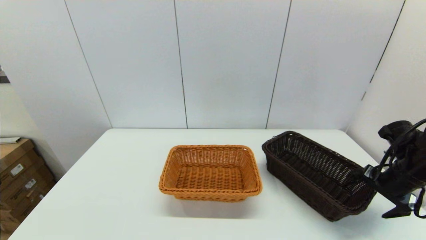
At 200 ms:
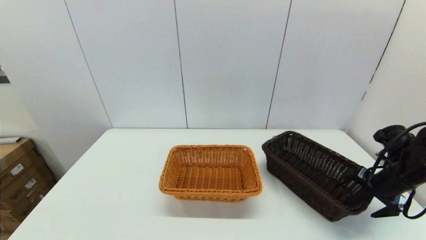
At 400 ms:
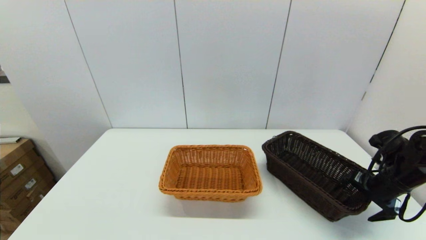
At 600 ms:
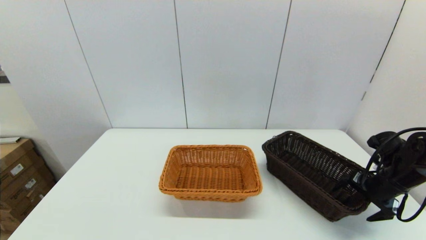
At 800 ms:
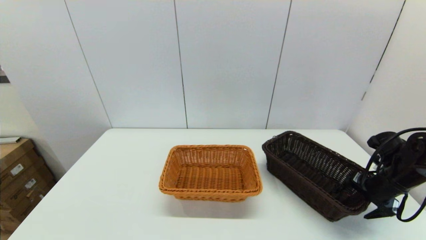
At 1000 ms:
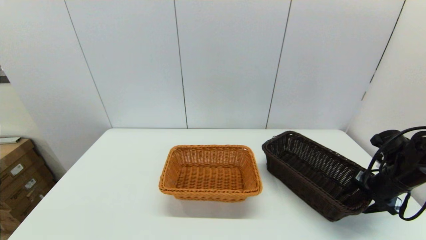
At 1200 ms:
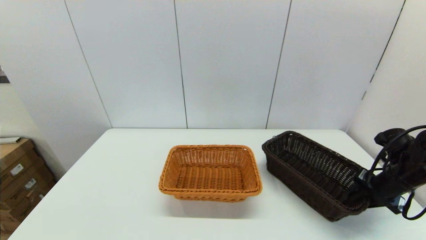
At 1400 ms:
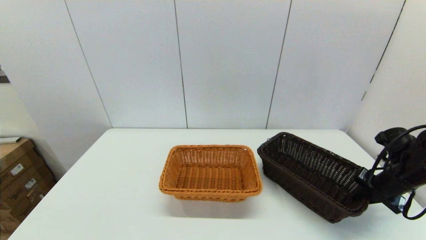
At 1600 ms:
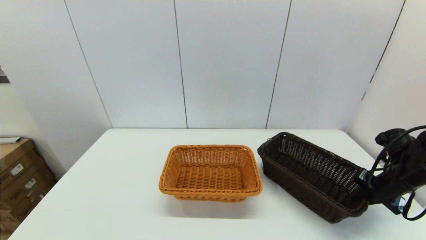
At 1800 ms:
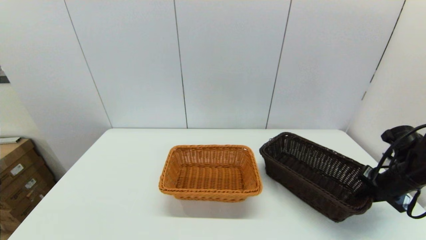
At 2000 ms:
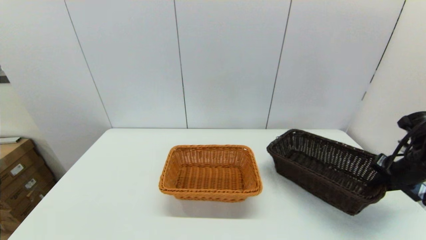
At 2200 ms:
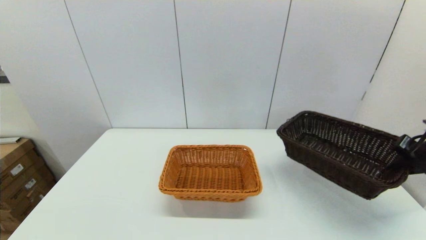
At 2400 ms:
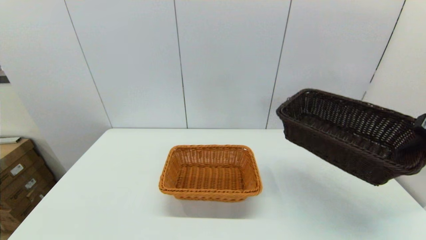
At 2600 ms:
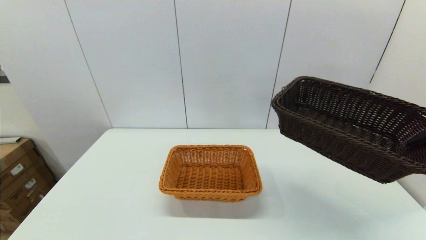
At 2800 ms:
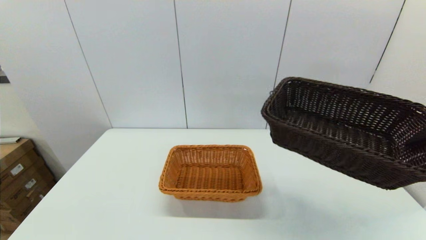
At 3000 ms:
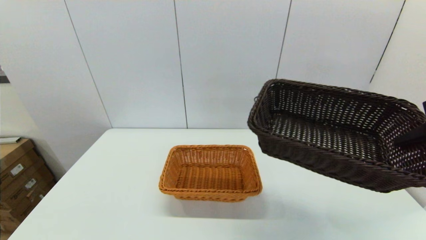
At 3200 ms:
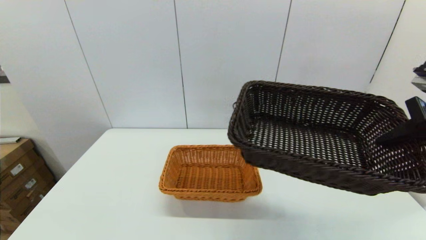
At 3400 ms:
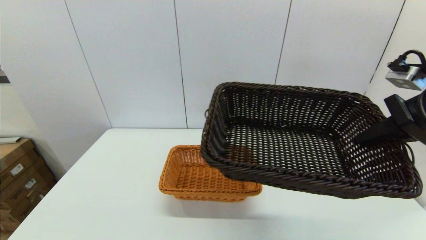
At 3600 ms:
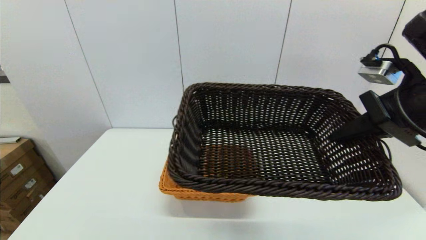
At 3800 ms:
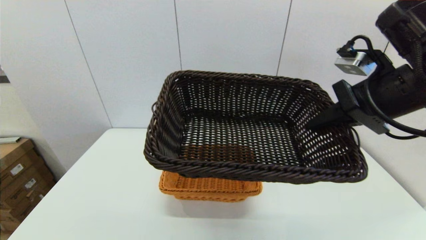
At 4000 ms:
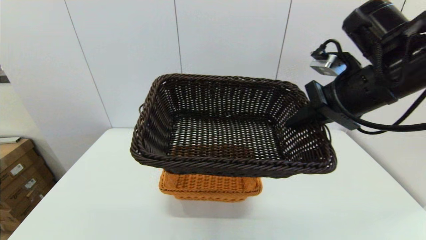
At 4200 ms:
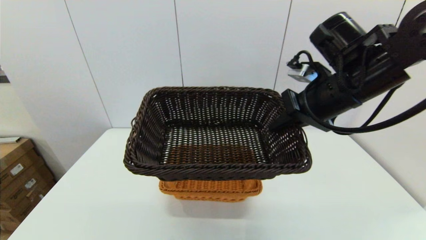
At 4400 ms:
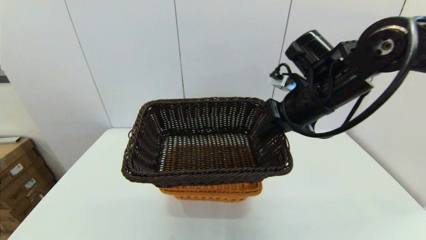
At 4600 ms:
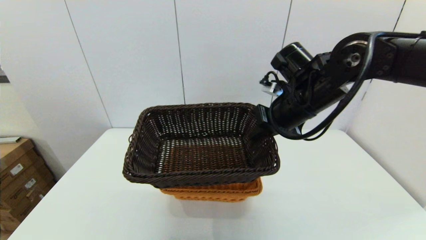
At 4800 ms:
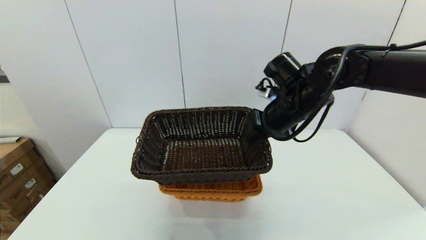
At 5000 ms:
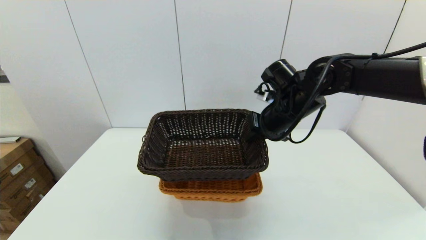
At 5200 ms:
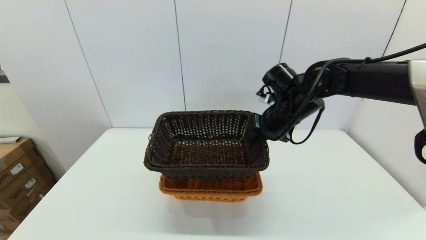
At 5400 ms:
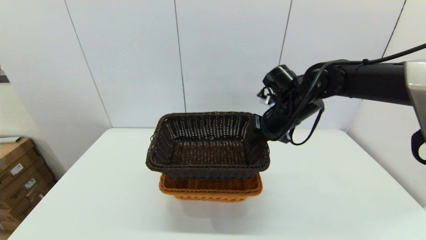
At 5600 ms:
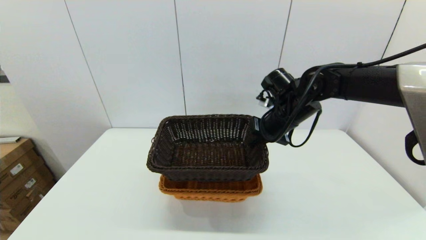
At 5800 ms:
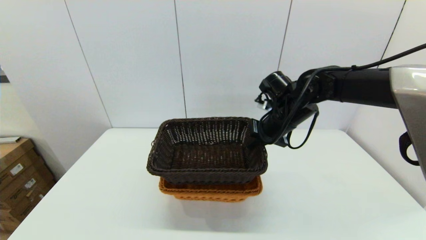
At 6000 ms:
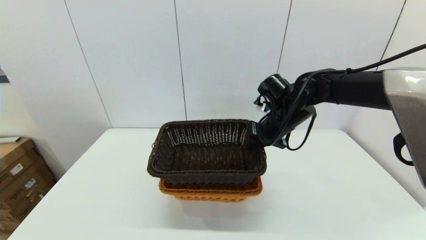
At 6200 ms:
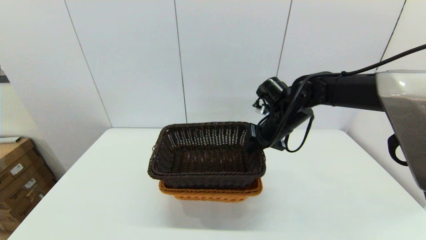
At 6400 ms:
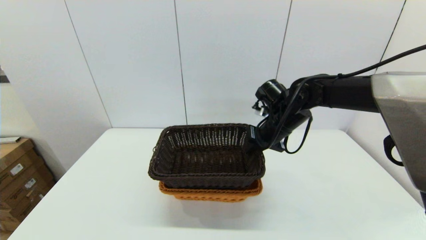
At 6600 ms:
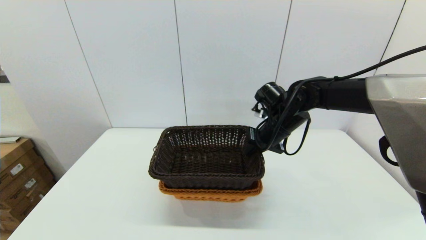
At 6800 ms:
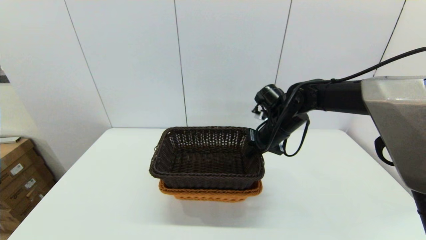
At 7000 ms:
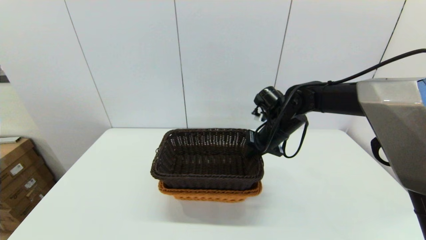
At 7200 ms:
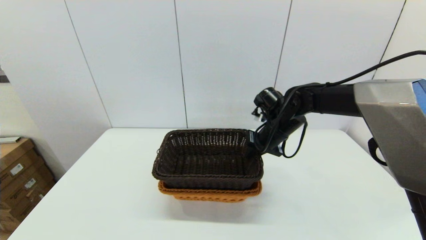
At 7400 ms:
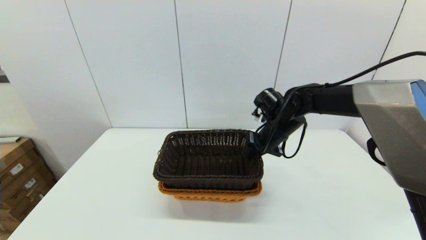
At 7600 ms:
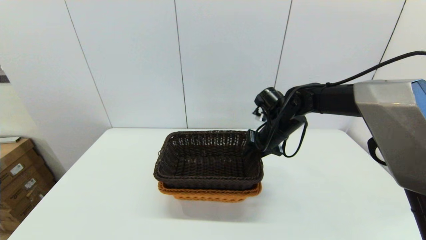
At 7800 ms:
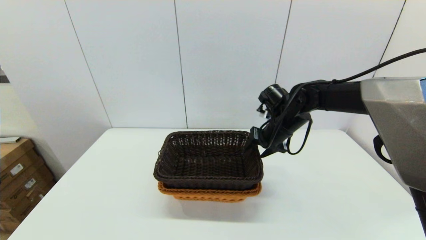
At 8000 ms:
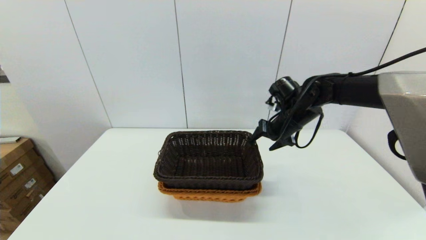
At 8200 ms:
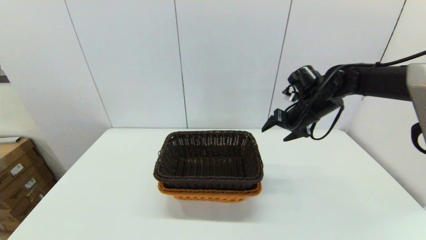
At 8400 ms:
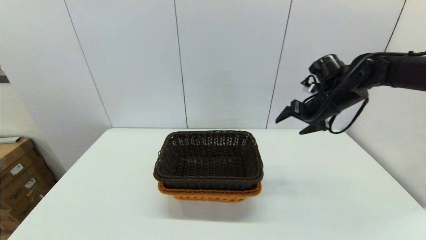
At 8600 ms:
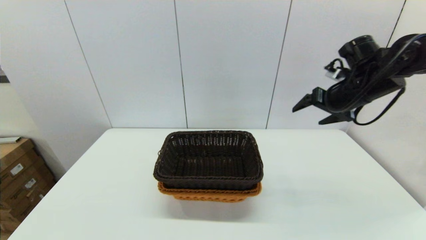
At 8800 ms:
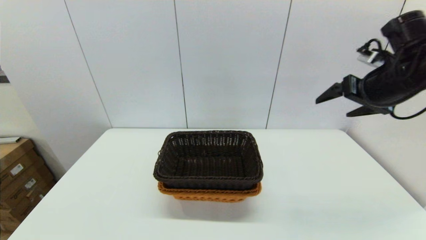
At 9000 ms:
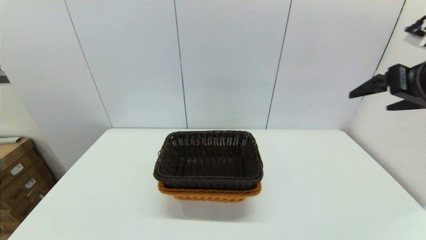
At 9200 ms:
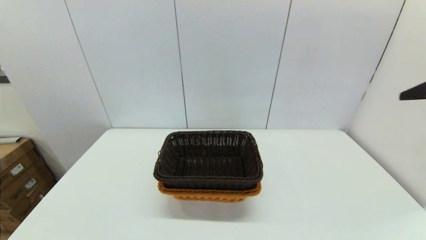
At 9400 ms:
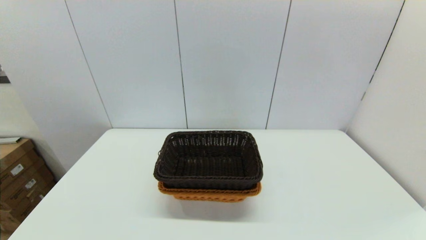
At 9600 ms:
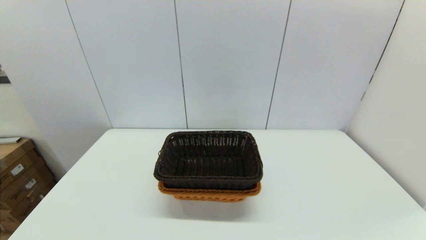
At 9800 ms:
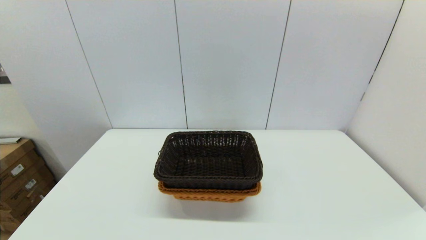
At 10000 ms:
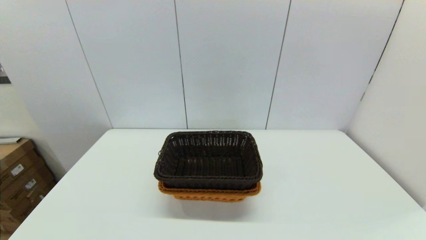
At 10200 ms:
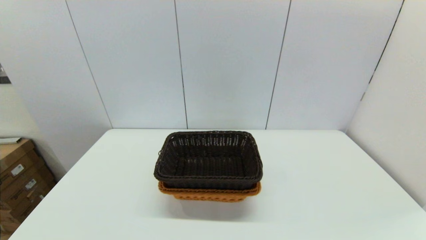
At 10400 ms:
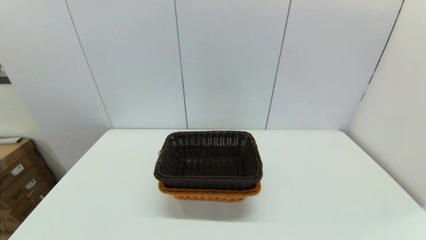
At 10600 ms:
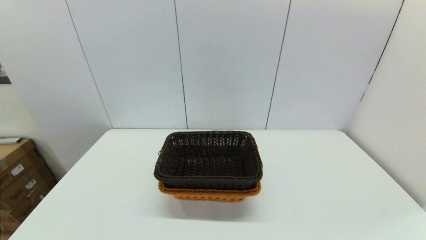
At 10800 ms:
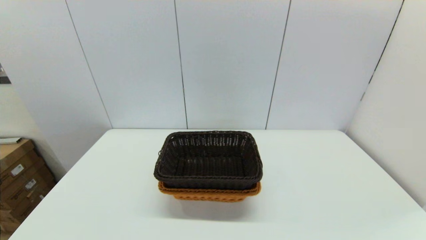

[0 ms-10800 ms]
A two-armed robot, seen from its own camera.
Task of the whole recording: stack a basket on top of another basket.
Step, 1600 ms to 8000 ms: Place the dark basket into the light color basket with the right gripper.
0 ms to 1600 ms: The right gripper closes up.
1600 ms to 3000 ms: The right gripper travels upward by roughly 20 cm.
3000 ms to 4600 ms: The right gripper is displaced to the left and forward by some 25 cm.
4600 ms to 6200 ms: The right gripper shifts some 10 cm downward and forward.
6200 ms to 7800 ms: The right gripper opens its fingers.
7800 ms to 9200 ms: The right gripper heads backward, upward and to the right, covering roughly 35 cm, and opens.
9200 ms to 10800 ms: The right gripper moves backward and downward, approximately 30 cm.

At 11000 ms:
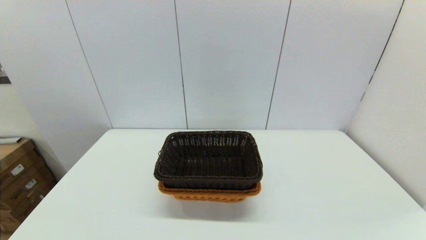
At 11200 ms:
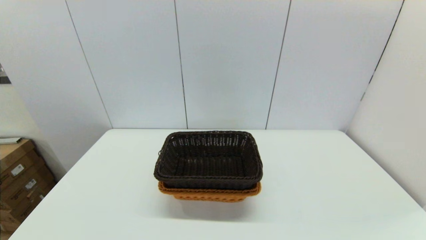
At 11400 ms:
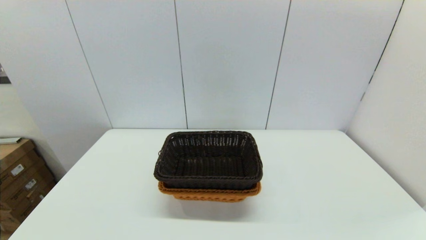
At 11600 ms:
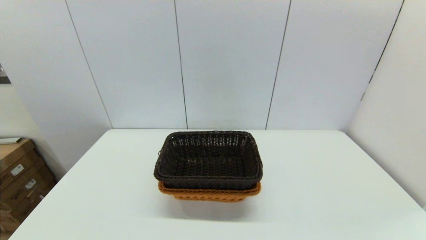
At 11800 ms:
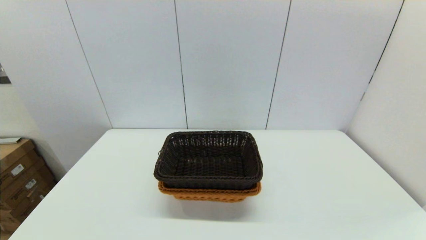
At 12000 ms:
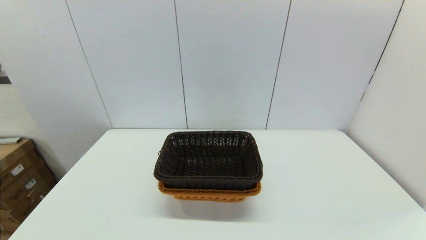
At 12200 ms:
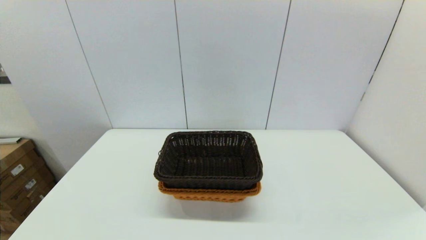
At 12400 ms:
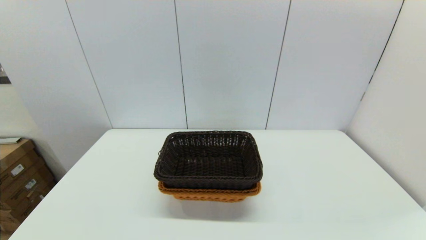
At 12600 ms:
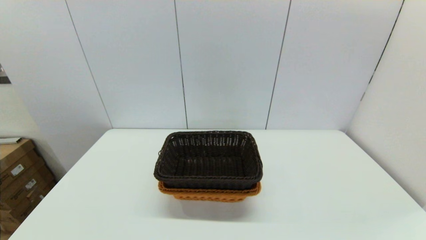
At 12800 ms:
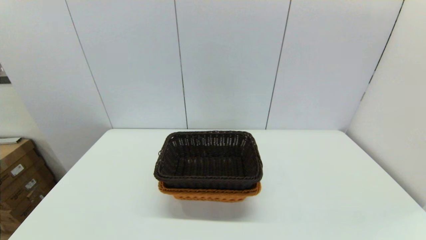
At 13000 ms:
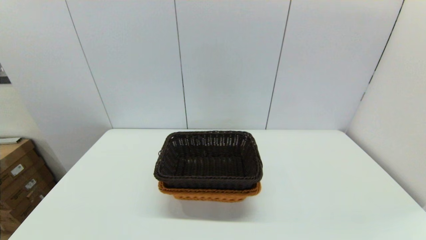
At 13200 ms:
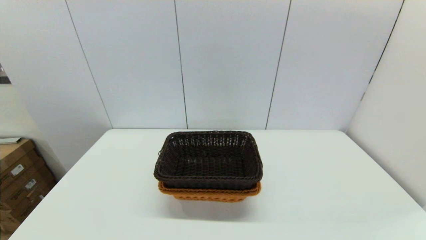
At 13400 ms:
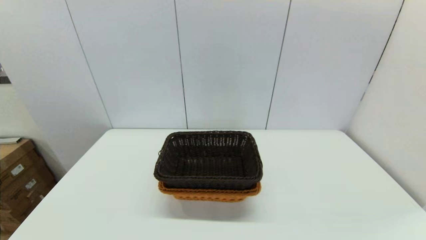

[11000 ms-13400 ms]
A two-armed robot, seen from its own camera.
Task of the whole recording: stack a basket on top of another basket.
12200 ms to 13400 ms: Both grippers stay about where they are.

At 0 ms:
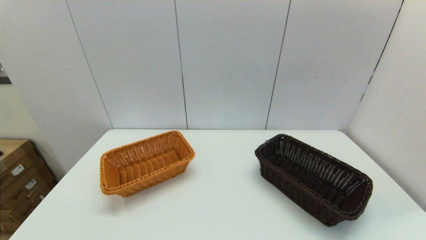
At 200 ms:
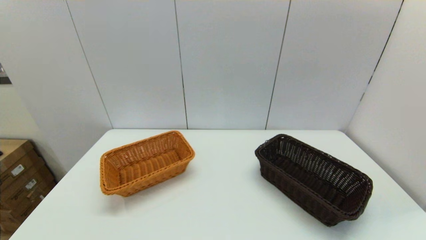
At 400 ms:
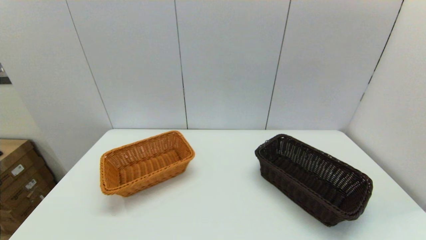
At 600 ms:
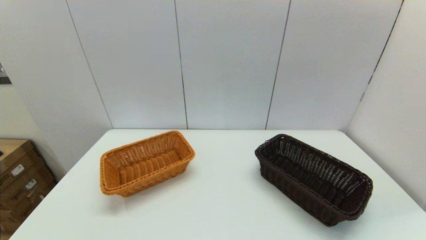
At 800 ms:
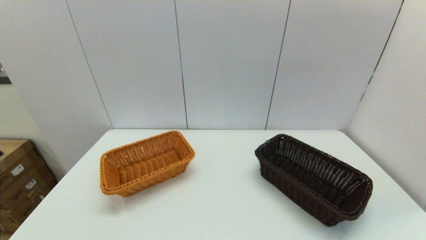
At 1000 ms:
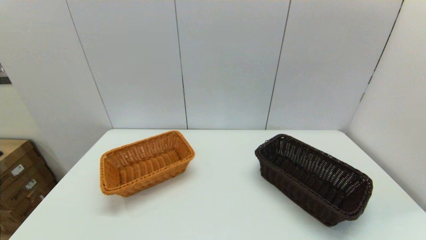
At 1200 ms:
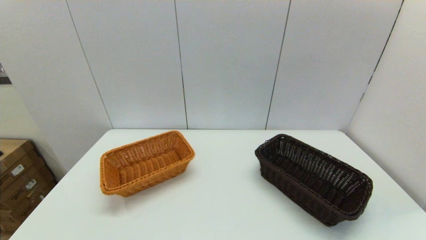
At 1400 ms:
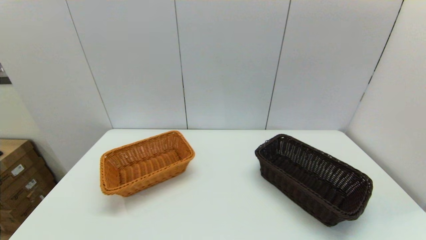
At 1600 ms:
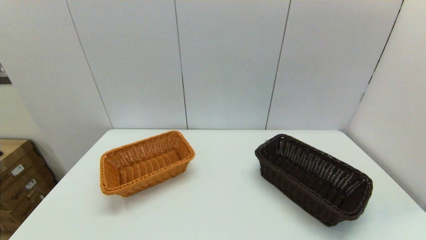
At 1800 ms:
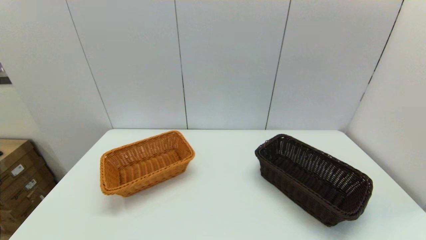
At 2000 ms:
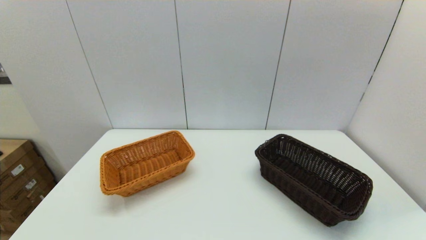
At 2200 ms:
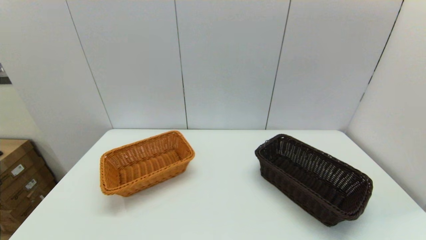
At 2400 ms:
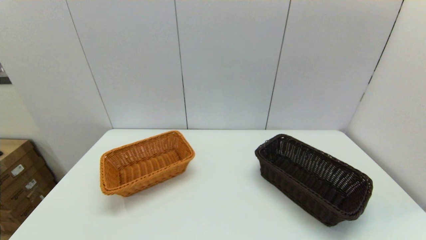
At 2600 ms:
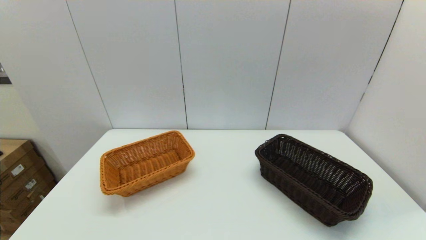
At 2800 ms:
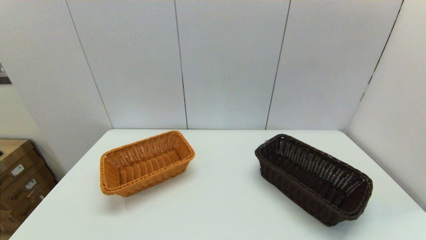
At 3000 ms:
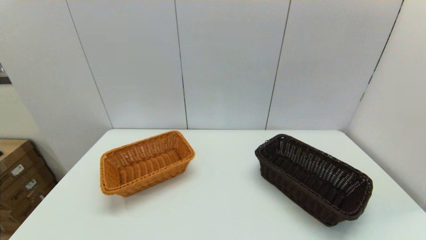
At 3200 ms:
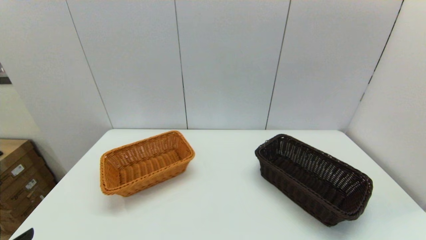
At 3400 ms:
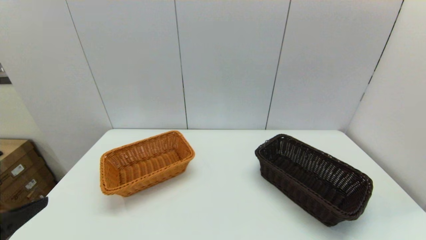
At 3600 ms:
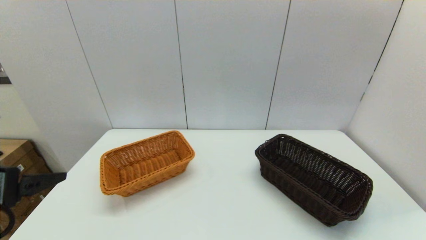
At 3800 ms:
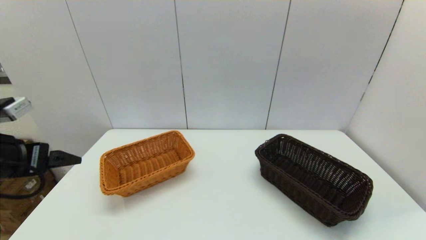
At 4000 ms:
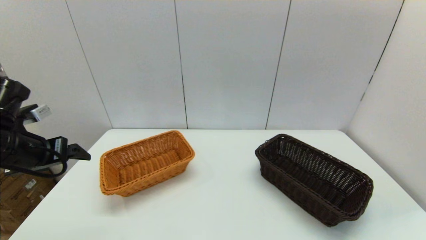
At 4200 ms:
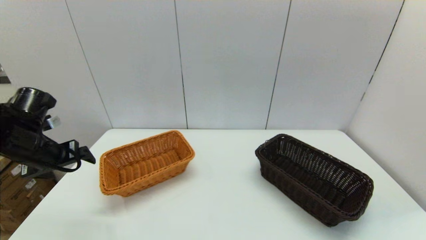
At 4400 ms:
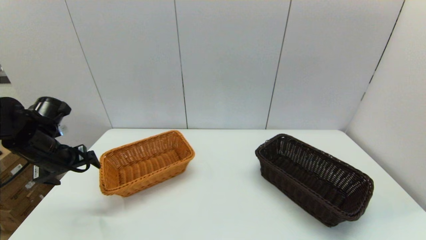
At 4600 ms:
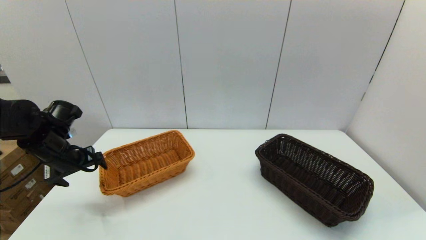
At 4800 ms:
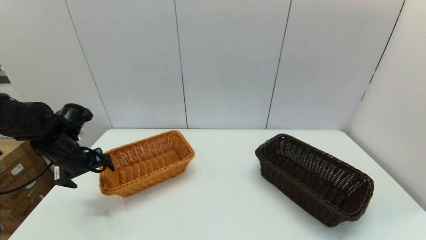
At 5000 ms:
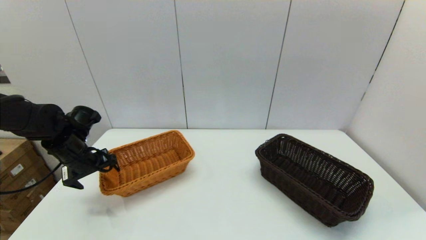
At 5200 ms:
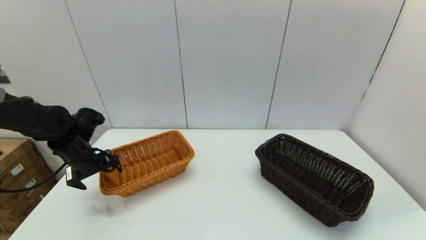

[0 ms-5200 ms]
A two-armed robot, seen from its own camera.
Task of the whole recording: stack a basket on top of another basket.
1800 ms to 3400 ms: The left gripper travels upward and forward by approximately 20 cm.
3400 ms to 5200 ms: The left gripper is displaced forward and downward by approximately 30 cm.
